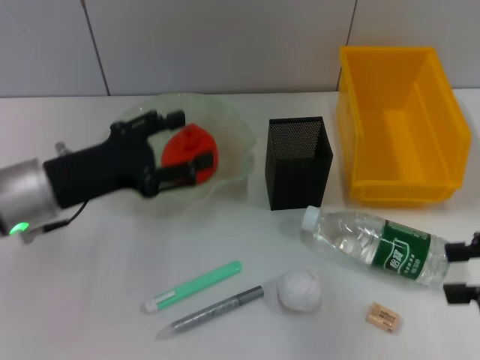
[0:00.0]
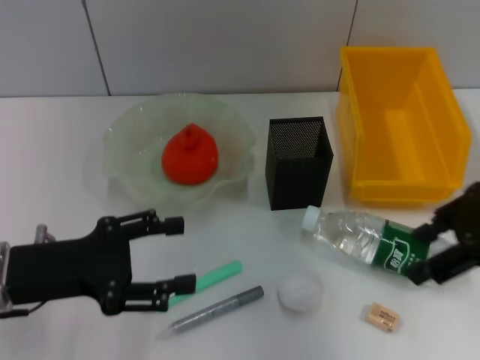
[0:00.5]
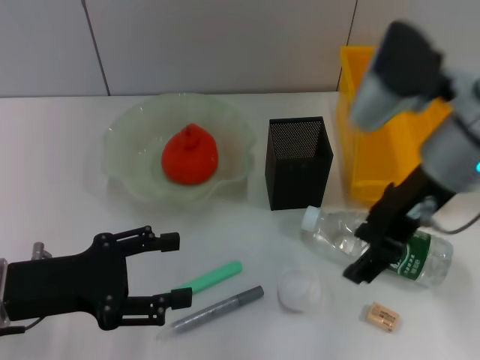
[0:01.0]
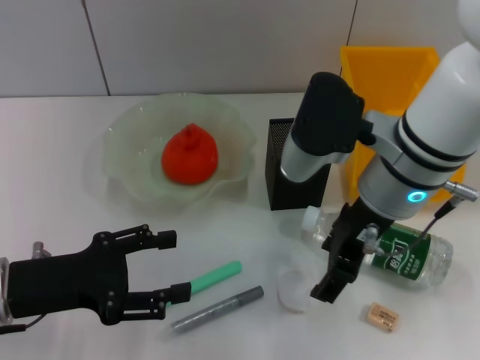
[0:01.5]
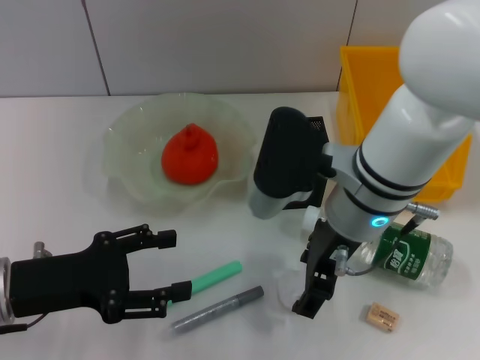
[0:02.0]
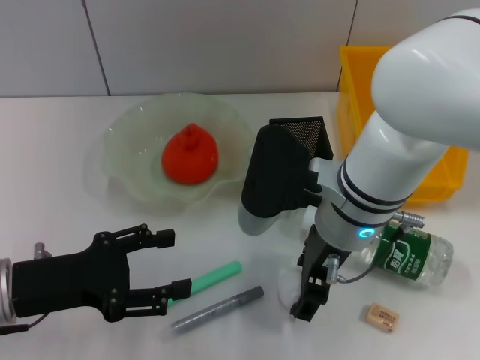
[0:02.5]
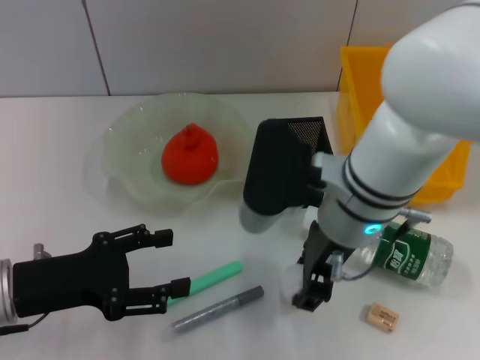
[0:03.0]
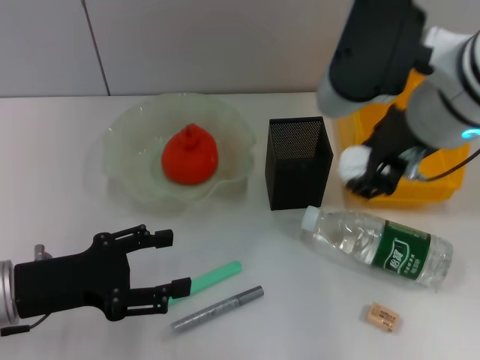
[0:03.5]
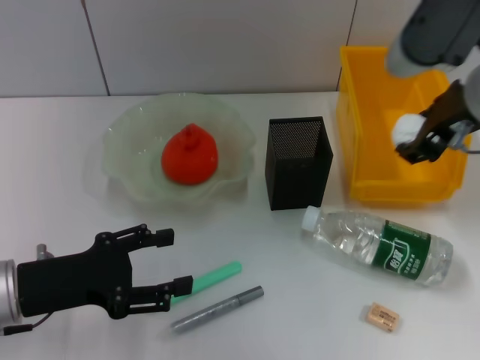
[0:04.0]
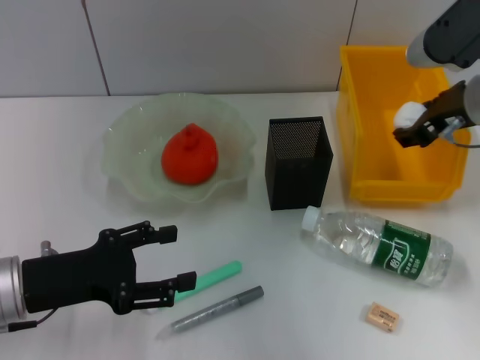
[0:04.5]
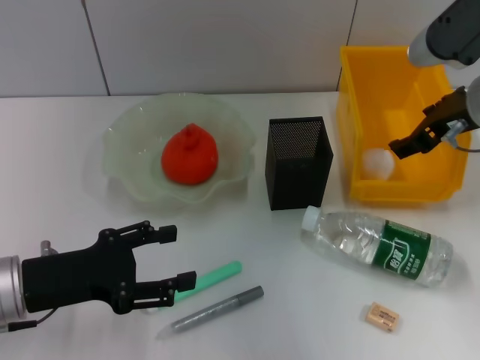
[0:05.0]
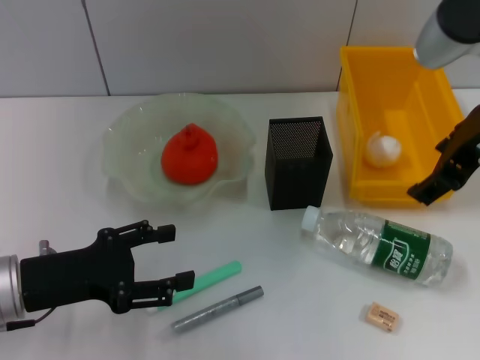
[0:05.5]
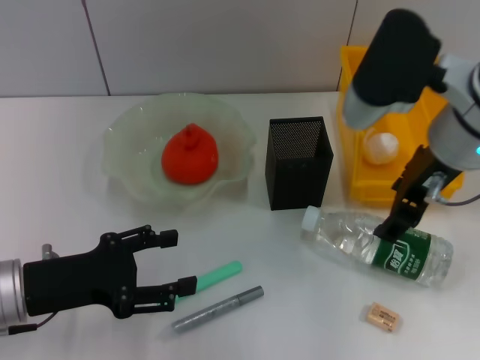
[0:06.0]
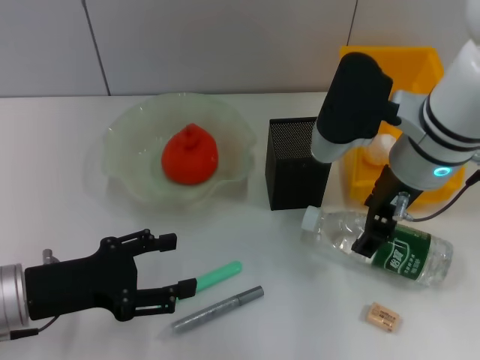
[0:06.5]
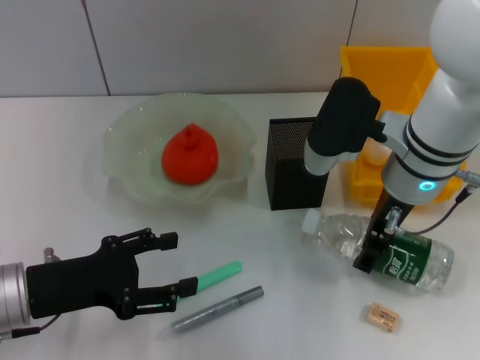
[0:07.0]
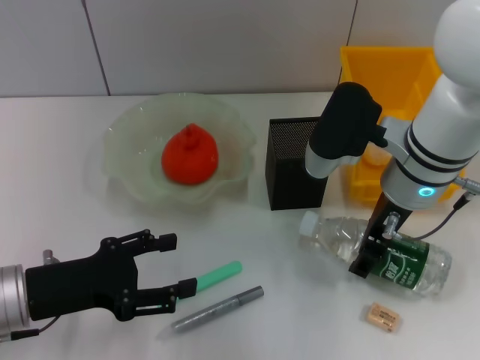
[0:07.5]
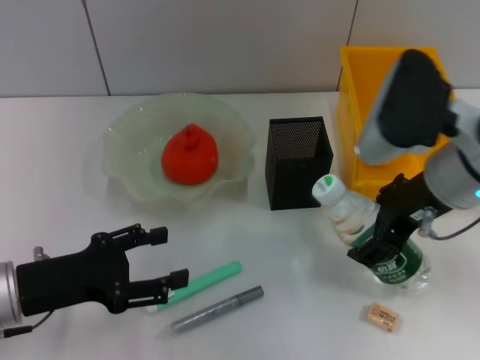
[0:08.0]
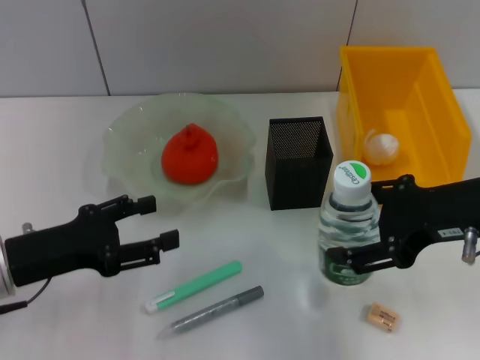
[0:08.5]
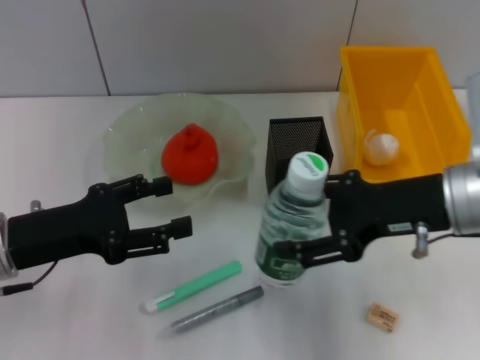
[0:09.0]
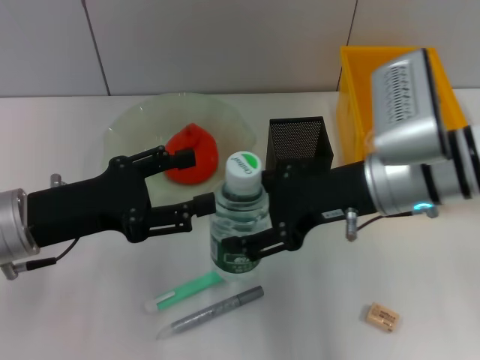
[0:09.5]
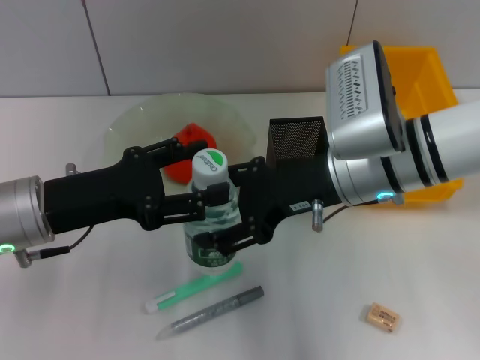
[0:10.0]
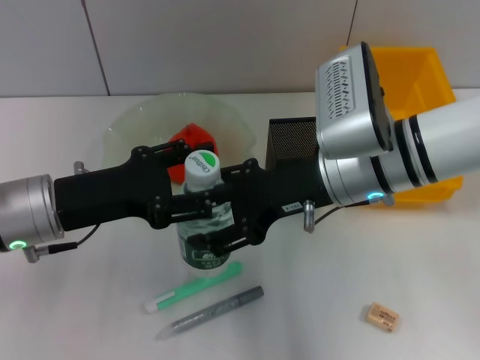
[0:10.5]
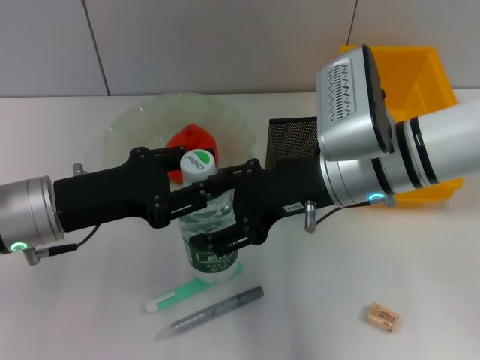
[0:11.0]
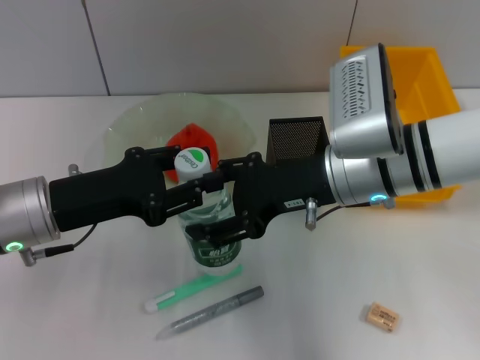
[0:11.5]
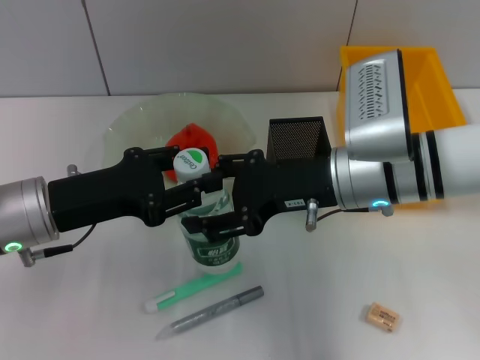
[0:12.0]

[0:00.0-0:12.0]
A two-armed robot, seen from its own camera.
Step, 0:00.0 to 0:02.5: Grab the paper ball with the right hand.
Step, 0:03.0 to 0:04.5: Place the paper ball into the trash can with the right hand.
Step, 0:05.0 to 0:07.5: Grab the water bottle with the right hand.
0:00.0 to 0:02.0: The right gripper travels to the left by roughly 25 cm. Meanwhile the left gripper goes some 5 cm backward.
0:02.0 to 0:04.0: The right gripper heads to the right and upward, covering roughly 15 cm.
0:04.0 to 0:06.0: The right gripper swings up and down, roughly 10 cm each way, with 2 reversals.
0:08.0 to 0:10.0: The left gripper travels upward by some 5 cm. Meanwhile the right gripper heads to the left, covering approximately 5 cm.
0:10.0 to 0:12.0: The left gripper closes its fingers.

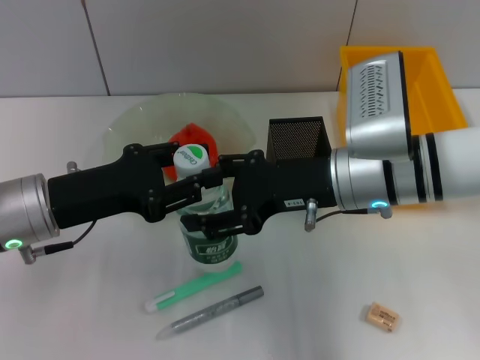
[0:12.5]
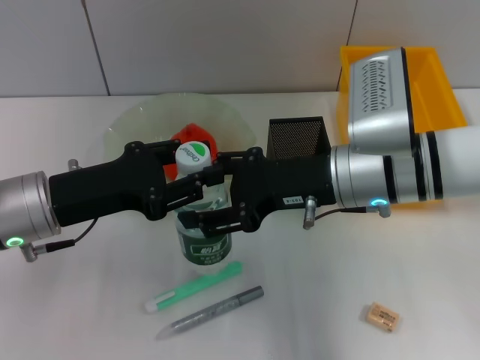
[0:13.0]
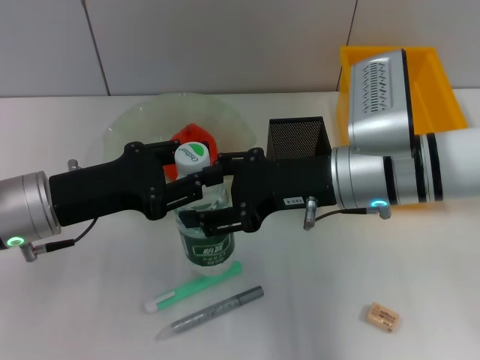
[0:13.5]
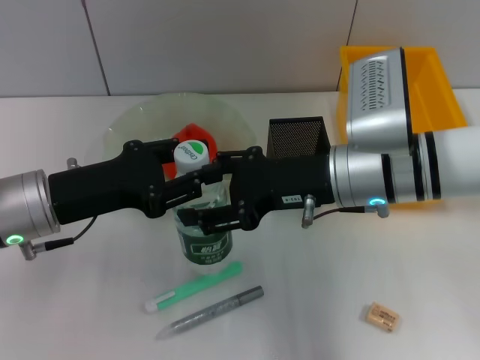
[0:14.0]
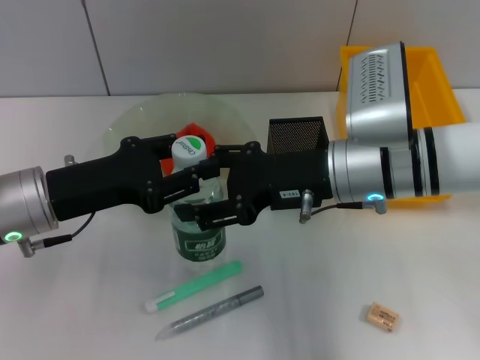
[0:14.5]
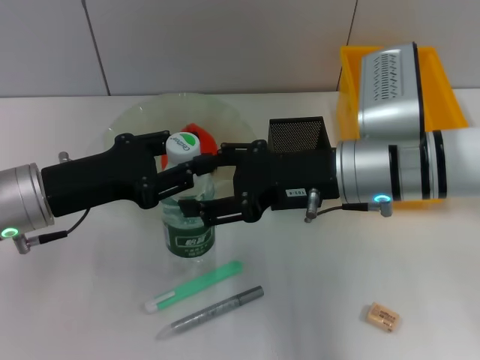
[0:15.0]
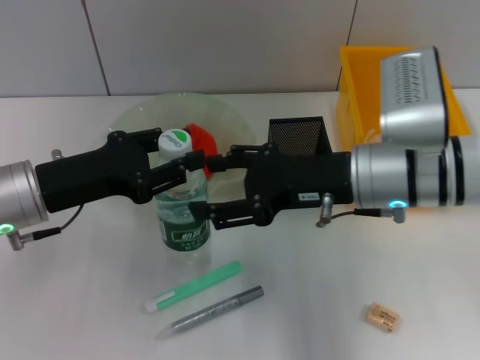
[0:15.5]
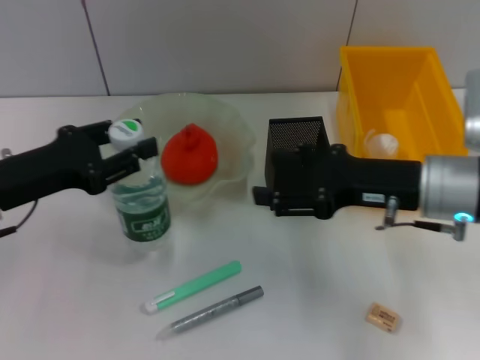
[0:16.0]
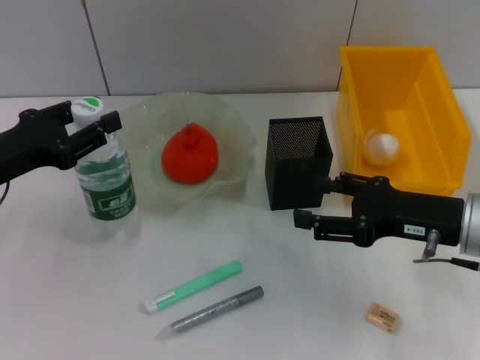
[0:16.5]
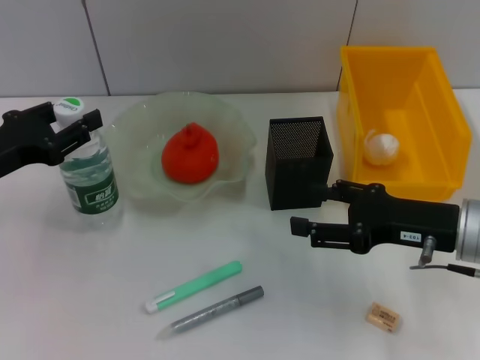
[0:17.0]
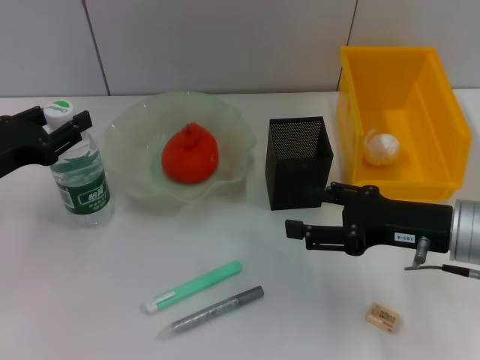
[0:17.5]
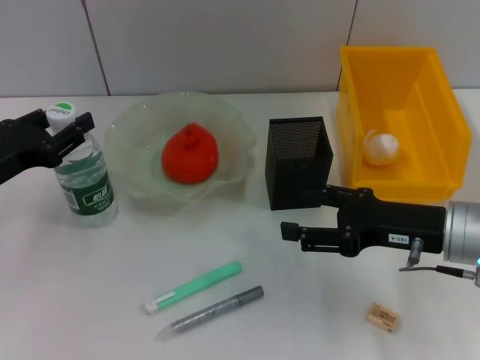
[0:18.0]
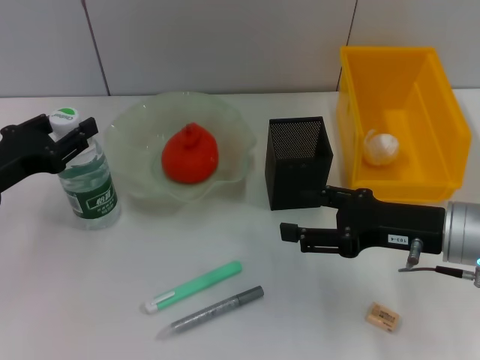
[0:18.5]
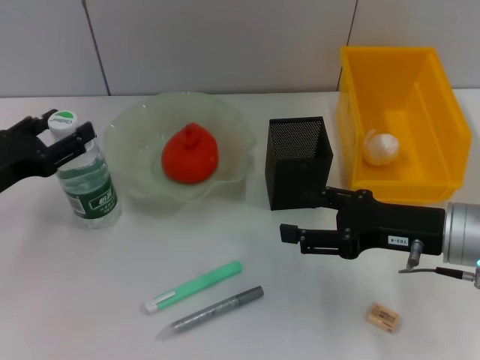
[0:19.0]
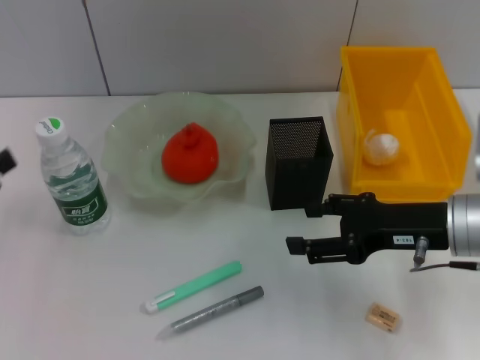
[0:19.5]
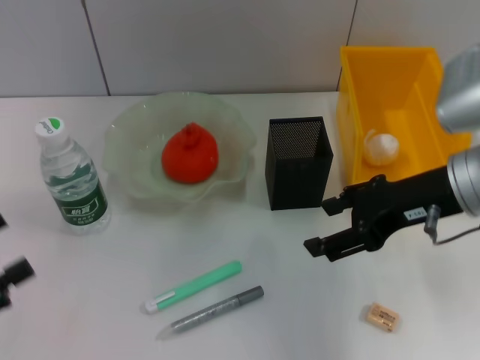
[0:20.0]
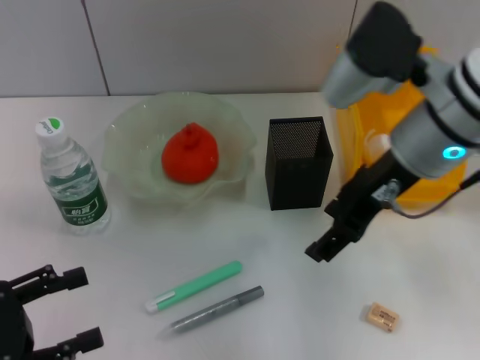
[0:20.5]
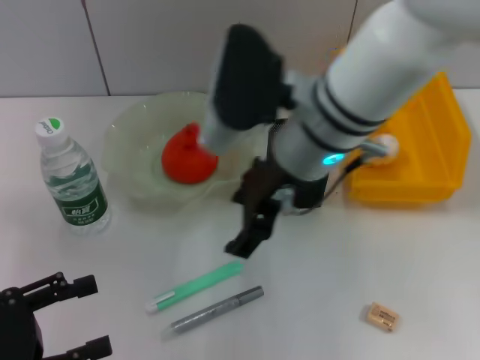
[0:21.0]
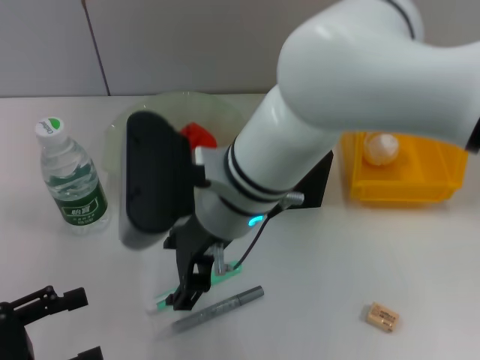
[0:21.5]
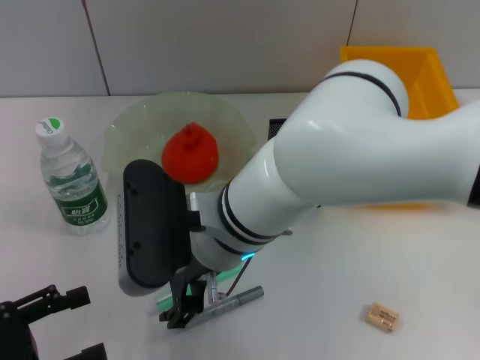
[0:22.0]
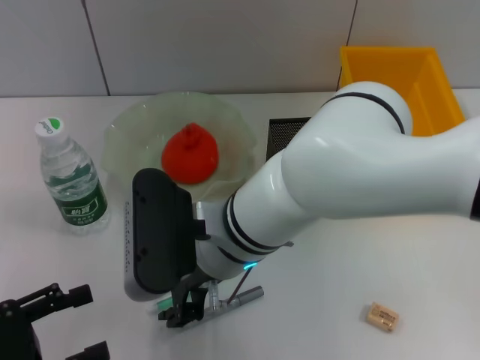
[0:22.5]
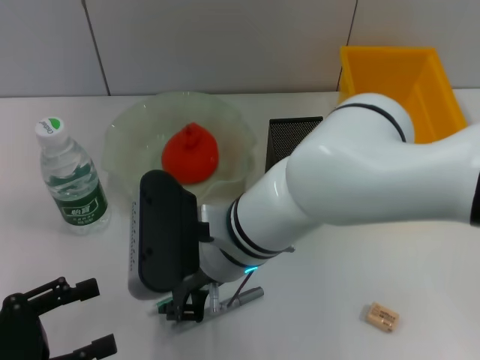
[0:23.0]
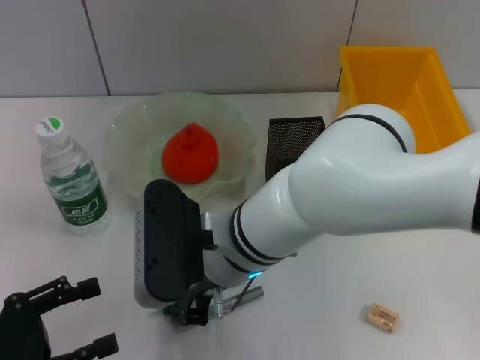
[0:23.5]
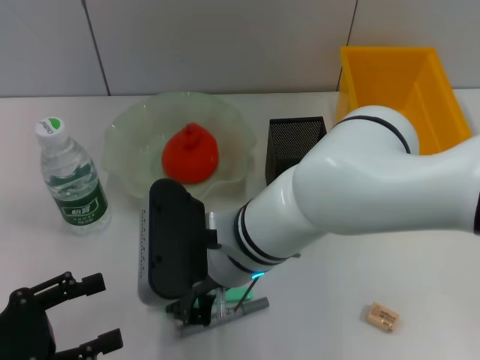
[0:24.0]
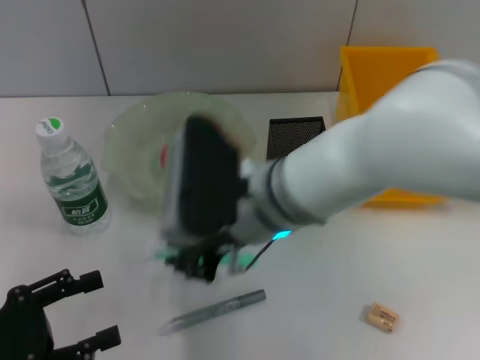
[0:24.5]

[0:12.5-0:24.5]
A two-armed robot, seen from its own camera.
Step, 0:12.5 to 0:15.5: Pass the water bottle from the right hand to the left hand.
Step, 0:16.0 to 0:18.5: Place the water bottle on the table with the left hand.
Step, 0:19.0 to 0:23.5: Grab the blue utility knife with the right hand.
0:12.5 to 0:14.5: Both grippers stay about where they are.
0:14.5 to 0:16.5: The left gripper goes approximately 5 cm to the left. Meanwhile the right gripper travels to the right by about 10 cm.
0:16.5 to 0:18.5: There are only small adjustments of the grippers.
0:18.5 to 0:20.5: The right gripper goes roughly 15 cm upward and to the left. Meanwhile the left gripper travels backward by approximately 15 cm, and opens its fingers.
0:20.5 to 0:22.5: The right gripper is displaced to the left and downward by some 20 cm.
0:22.5 to 0:24.5: The right gripper closes up.

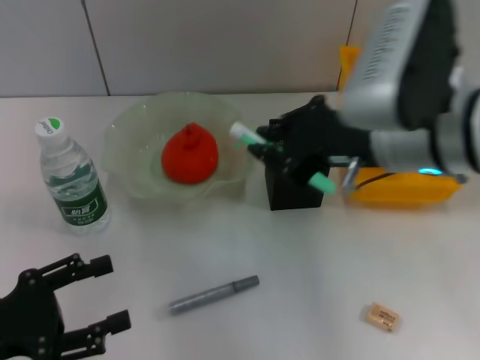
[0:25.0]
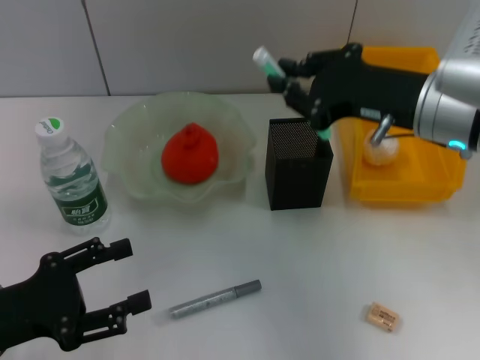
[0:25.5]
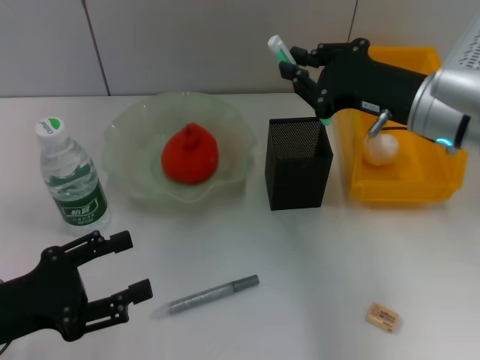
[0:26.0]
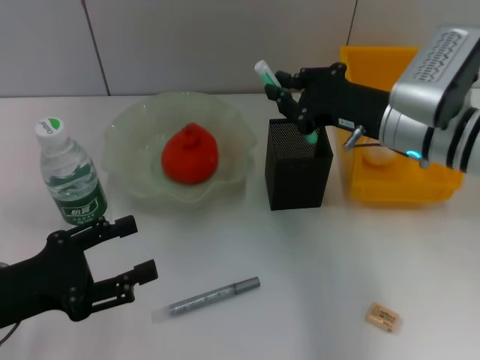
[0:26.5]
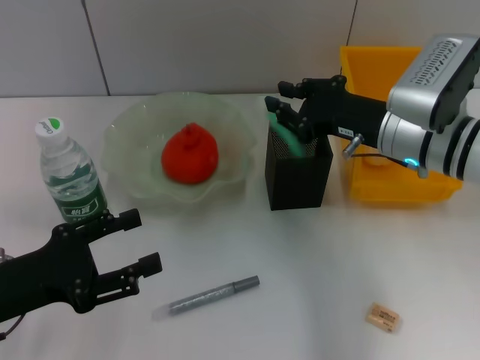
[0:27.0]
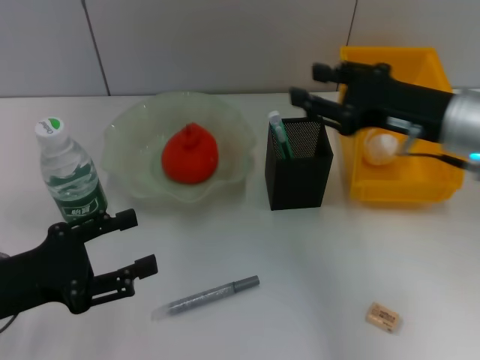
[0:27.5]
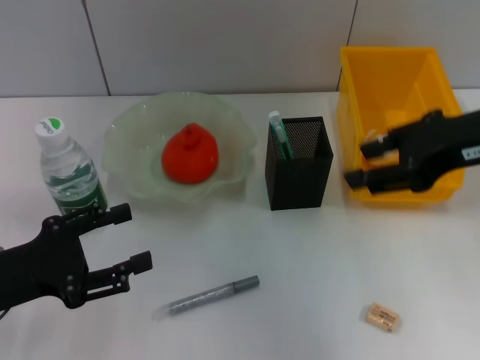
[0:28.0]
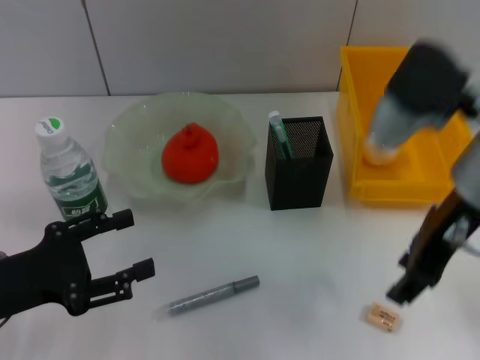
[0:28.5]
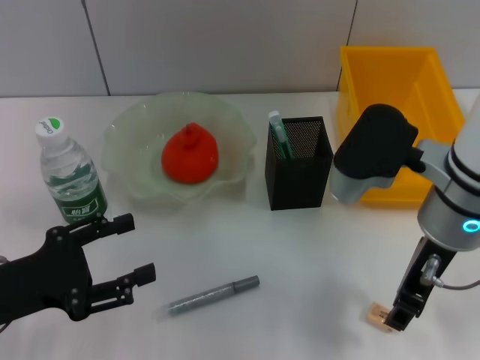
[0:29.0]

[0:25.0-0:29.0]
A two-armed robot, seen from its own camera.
Step, 0:25.0 to 0:27.0: Place the blue utility knife into the pen holder with the right hand.
0:25.0 to 0:27.0: The right gripper goes roughly 10 cm downward and forward.
0:27.0 to 0:29.0: The right gripper moves backward and upward, roughly 10 cm, and opens.
